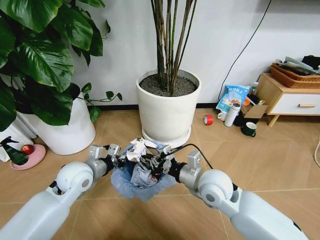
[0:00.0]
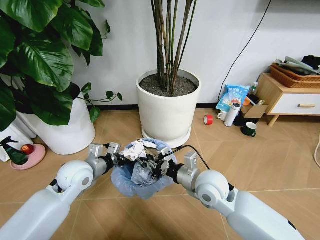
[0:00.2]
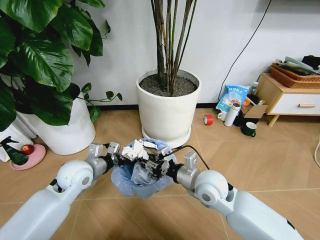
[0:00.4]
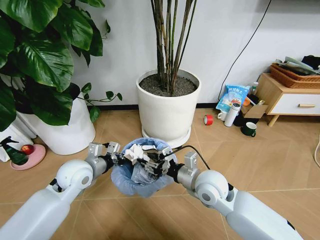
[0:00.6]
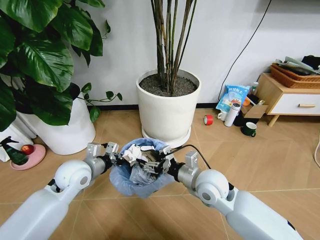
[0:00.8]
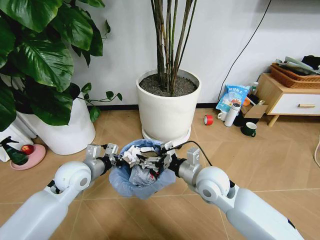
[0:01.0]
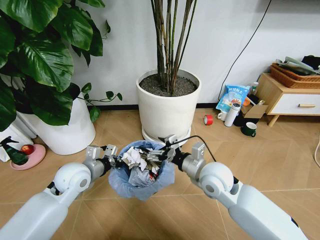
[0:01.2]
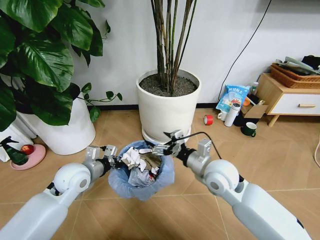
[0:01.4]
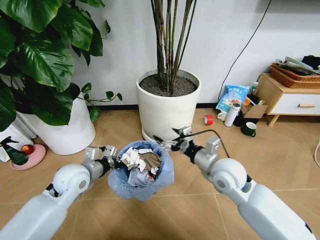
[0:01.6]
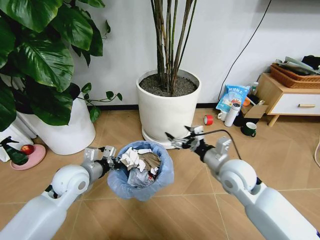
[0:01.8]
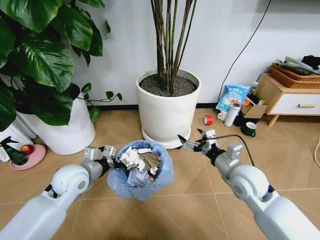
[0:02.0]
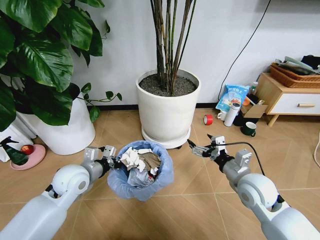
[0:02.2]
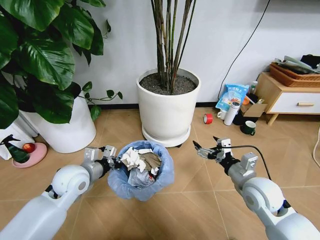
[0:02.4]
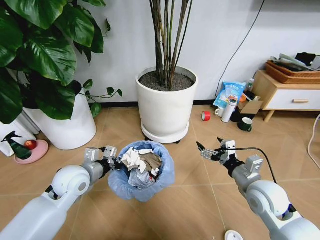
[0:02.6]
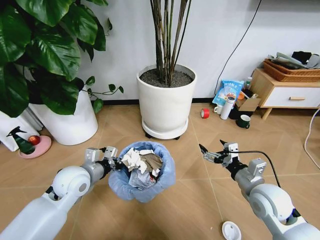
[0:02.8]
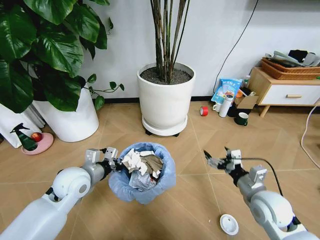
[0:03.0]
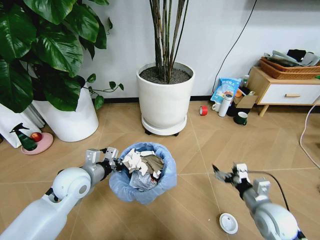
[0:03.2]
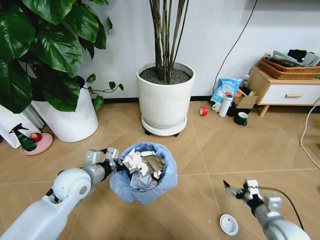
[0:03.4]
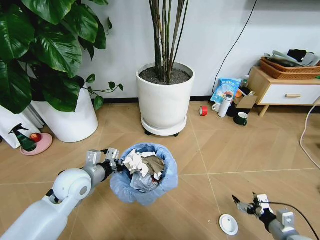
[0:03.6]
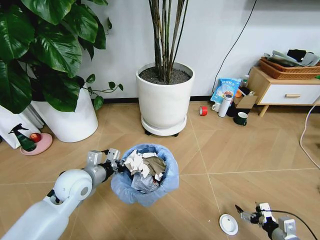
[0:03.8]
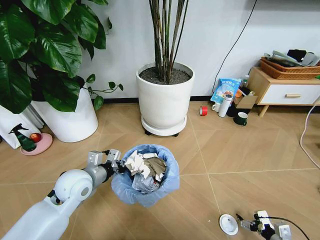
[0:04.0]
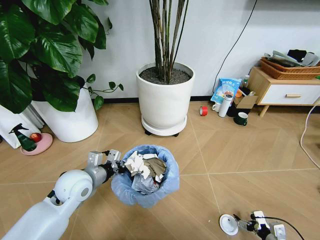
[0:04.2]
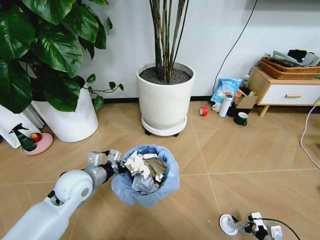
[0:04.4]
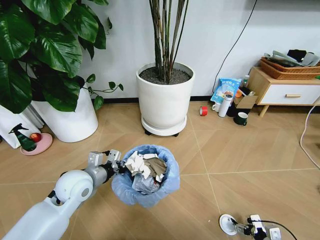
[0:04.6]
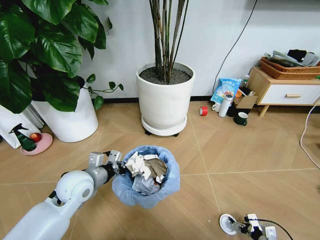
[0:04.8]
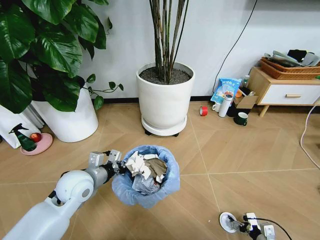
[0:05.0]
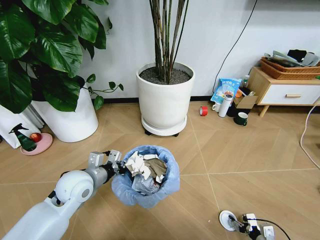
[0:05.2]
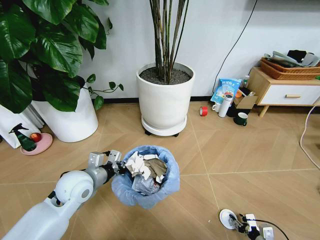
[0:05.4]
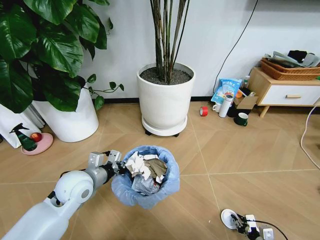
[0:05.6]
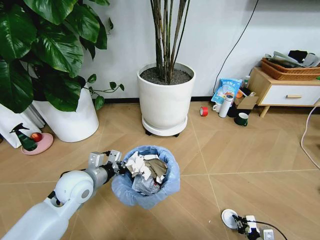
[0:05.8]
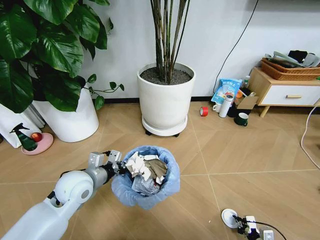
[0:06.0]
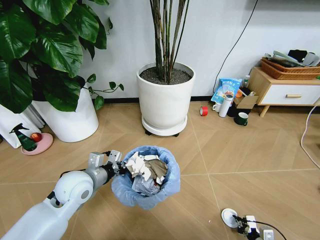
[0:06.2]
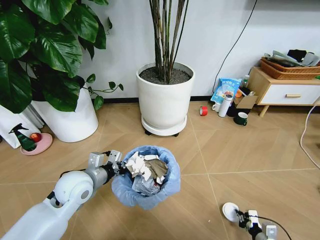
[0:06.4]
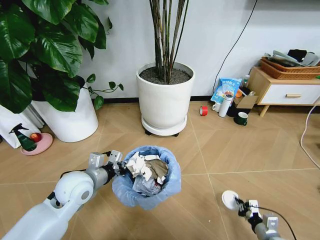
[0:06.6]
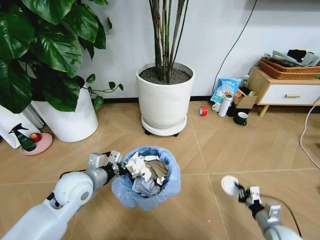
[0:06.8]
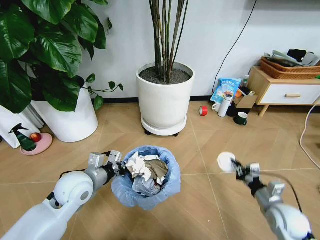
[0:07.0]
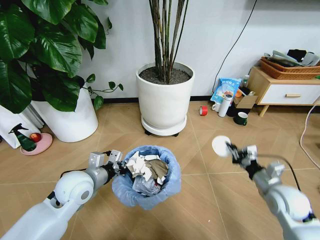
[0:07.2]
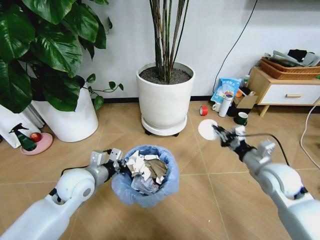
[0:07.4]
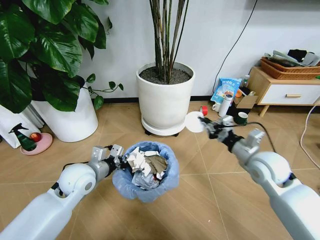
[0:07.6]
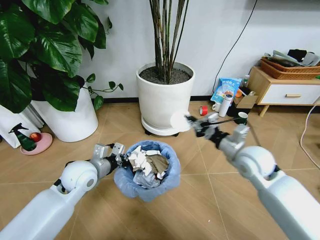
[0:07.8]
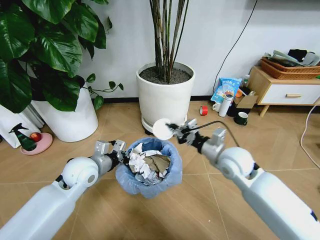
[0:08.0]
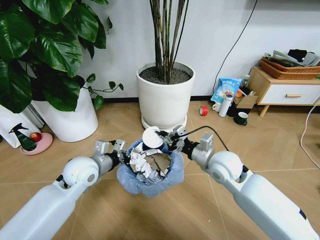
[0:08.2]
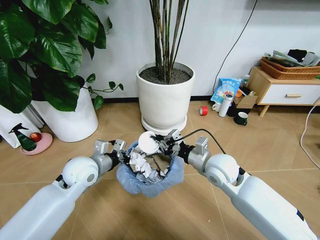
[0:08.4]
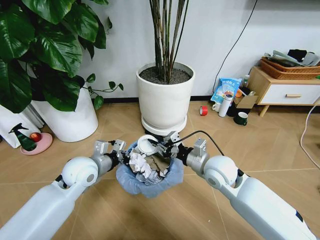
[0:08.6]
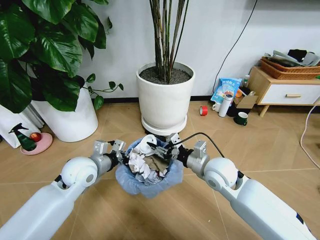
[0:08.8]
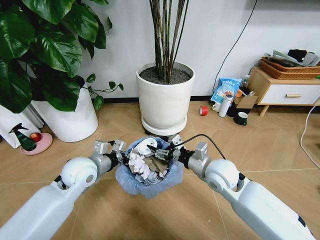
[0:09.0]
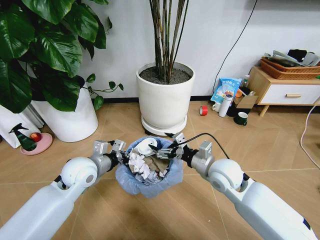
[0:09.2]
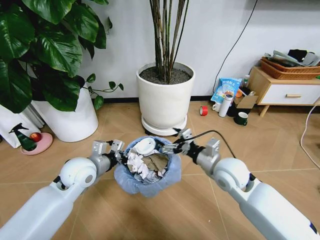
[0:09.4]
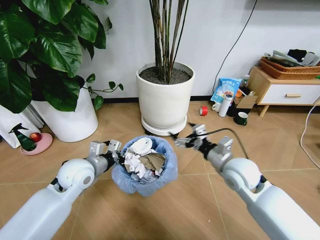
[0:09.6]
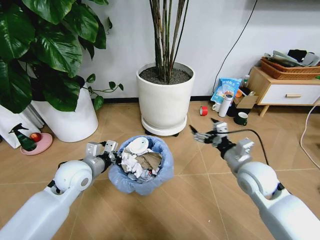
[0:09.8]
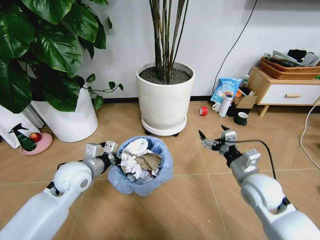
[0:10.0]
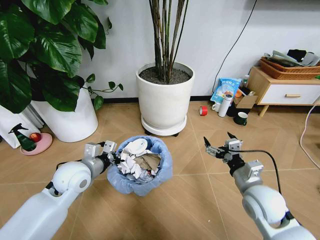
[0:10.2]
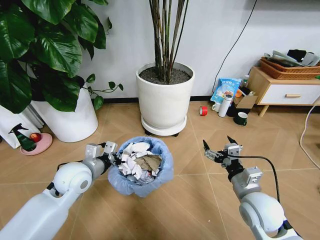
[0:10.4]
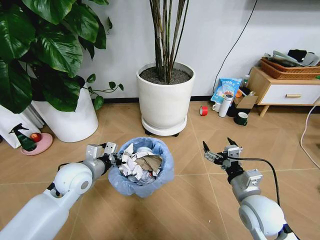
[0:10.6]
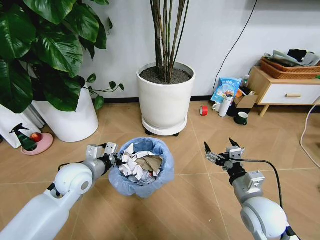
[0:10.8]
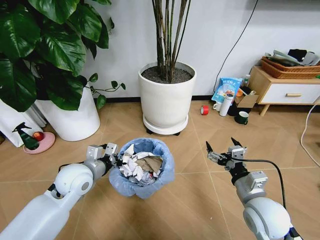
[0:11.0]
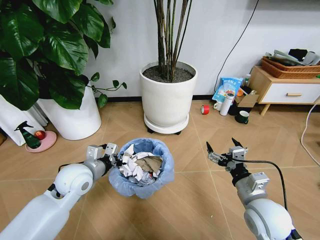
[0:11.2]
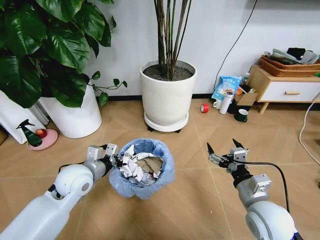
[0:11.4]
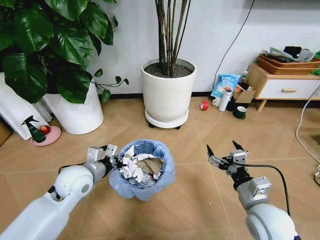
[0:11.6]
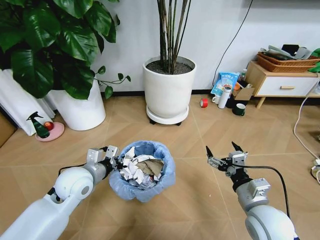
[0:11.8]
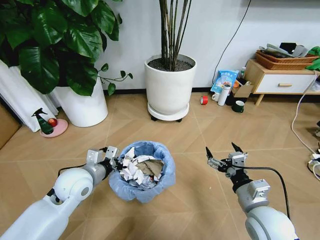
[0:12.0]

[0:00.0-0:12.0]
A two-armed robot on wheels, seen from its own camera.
Task of the whole recording: Pick up the trash bin and place the garbage on the floor into it.
0:00.0 to 0:01.6: The right gripper shifts by about 5 cm, and opens its fingers.
0:01.6 to 0:03.0: The right gripper moves to the right, backward and downward, some 15 cm.
0:03.0 to 0:04.4: The right gripper shifts roughly 30 cm downward, to the right and backward.
0:04.4 to 0:06.0: The right gripper moves roughly 5 cm, and closes up.
0:06.0 to 0:07.6: The right gripper shifts about 40 cm upward and forward.
0:07.6 to 0:09.0: The right gripper moves to the left, roughly 10 cm, and opens.
0:09.0 to 0:10.4: The right gripper goes some 15 cm backward and to the right.

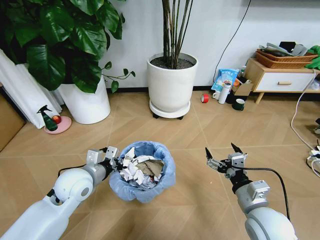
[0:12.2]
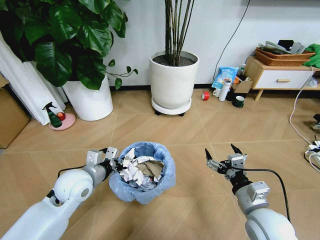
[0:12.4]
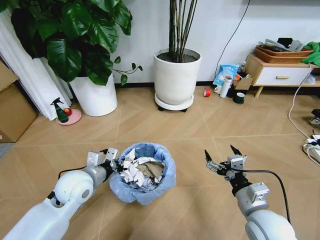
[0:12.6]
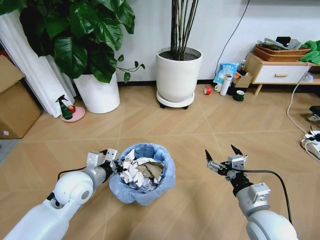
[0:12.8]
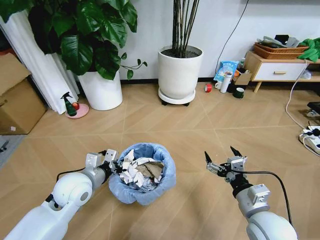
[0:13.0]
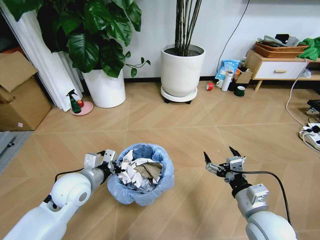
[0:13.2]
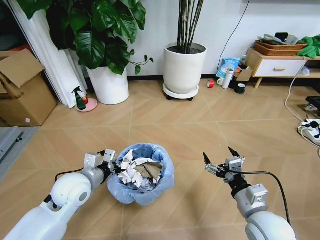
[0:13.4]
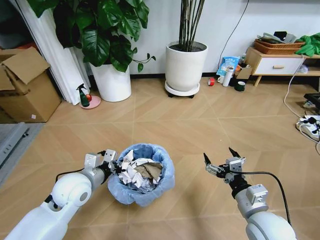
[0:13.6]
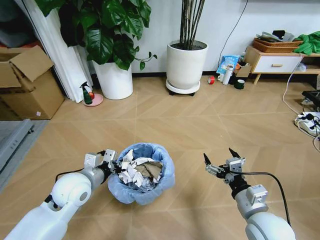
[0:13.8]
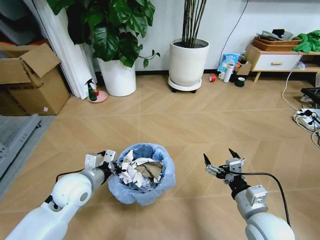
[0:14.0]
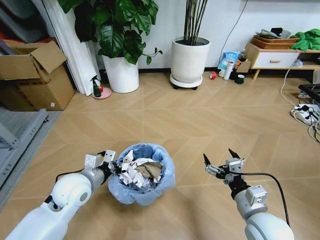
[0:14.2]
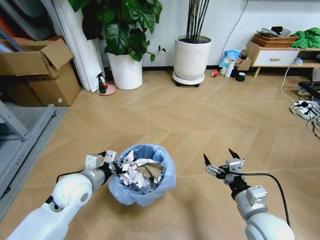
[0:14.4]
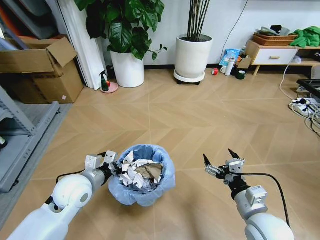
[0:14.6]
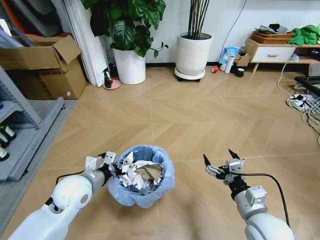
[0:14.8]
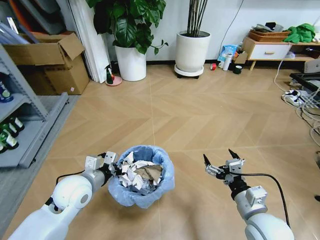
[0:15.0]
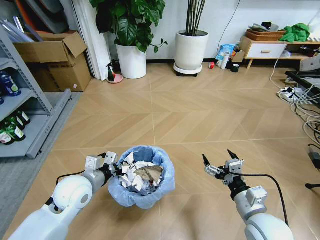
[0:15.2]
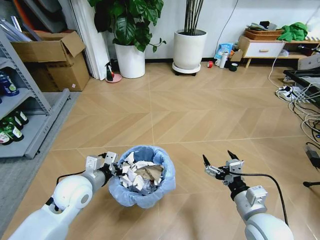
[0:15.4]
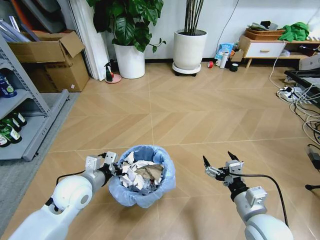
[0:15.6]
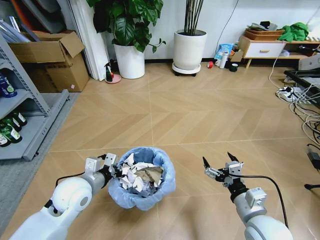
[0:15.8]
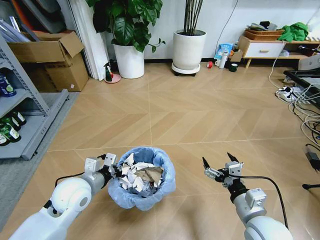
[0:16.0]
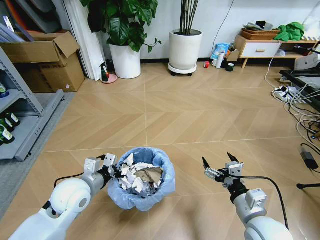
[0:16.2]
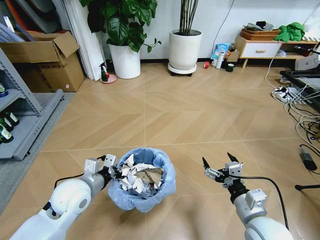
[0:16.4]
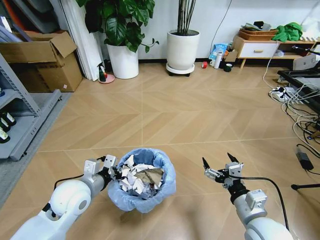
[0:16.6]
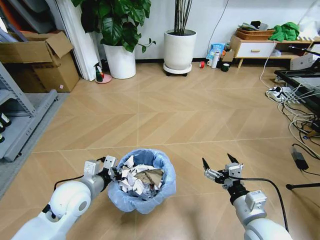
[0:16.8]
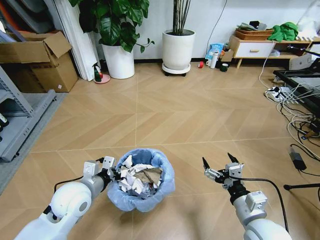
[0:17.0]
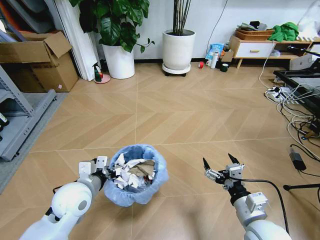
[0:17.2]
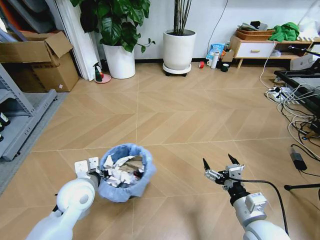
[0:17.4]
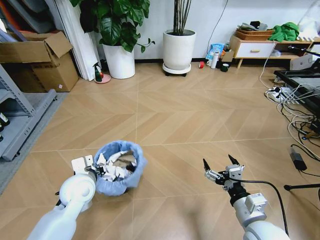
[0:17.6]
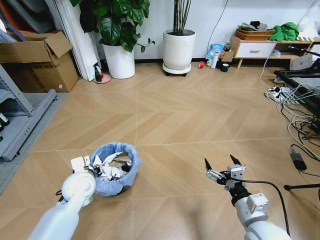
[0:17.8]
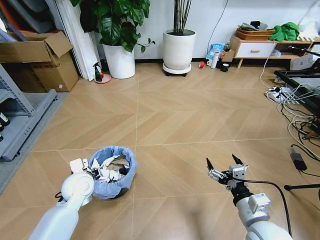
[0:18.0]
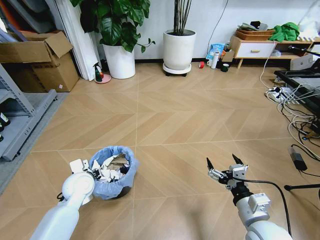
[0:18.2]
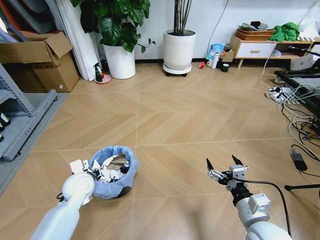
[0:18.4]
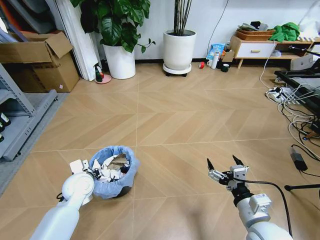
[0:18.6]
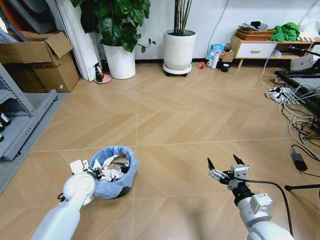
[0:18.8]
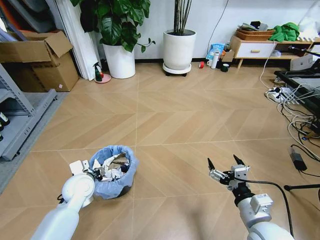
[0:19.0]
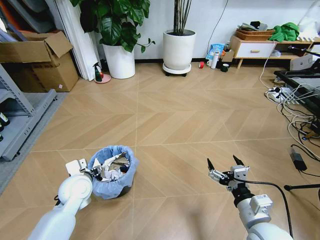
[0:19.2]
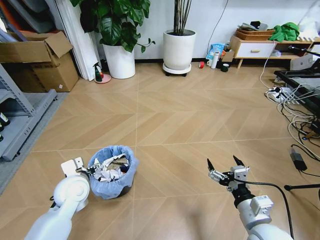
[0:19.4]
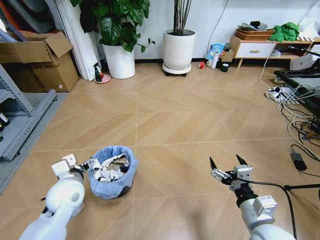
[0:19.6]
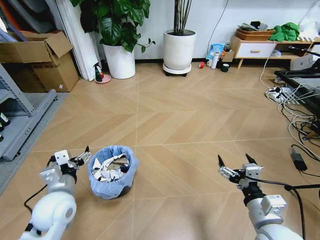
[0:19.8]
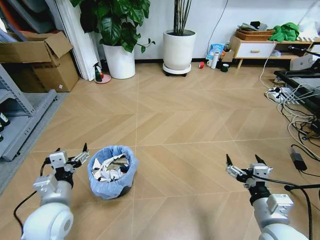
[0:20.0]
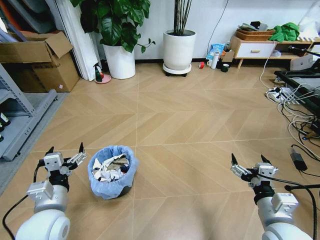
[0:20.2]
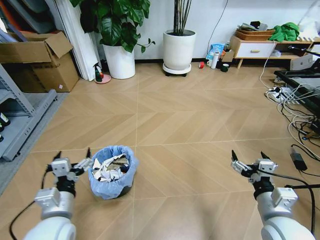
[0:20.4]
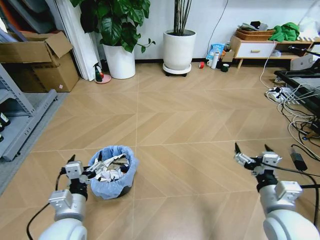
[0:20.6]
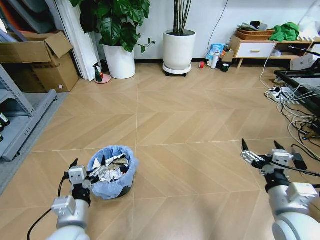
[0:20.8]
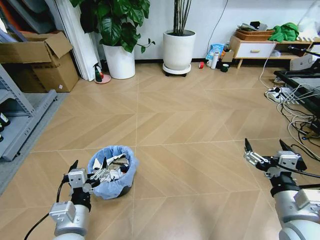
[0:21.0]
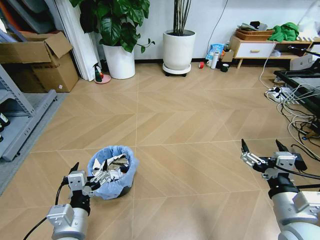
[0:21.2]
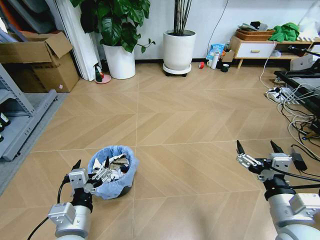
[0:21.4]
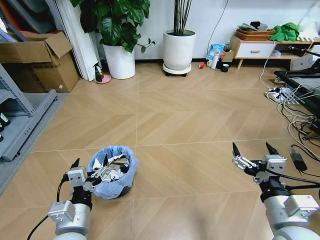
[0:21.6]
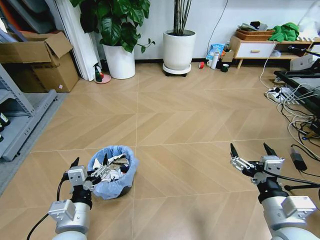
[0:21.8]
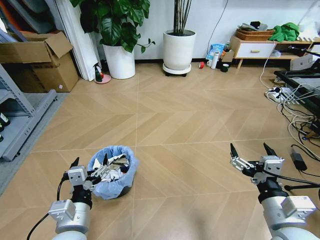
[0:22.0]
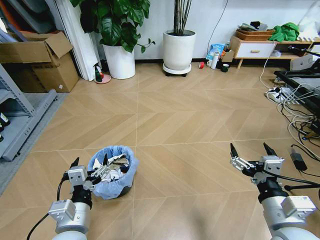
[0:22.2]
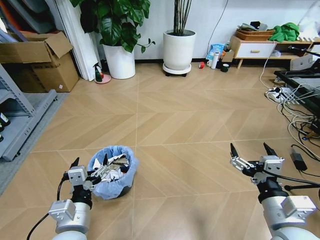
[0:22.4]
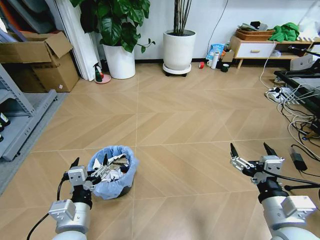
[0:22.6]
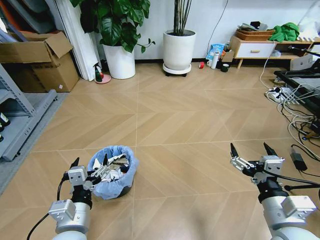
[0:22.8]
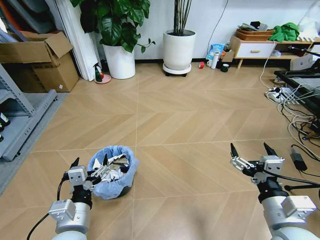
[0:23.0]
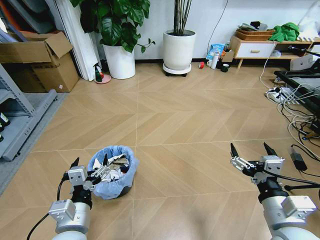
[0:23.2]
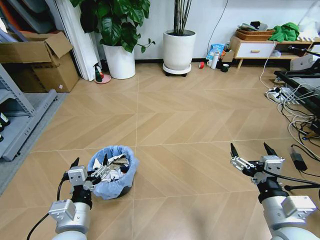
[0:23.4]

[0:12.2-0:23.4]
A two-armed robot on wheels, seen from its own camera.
Task of the whole recording: Pick up the trash bin and place the garbage on the floor into it.
0:17.0 to 0:18.6: The left gripper shifts some 10 cm forward and downward.
0:18.6 to 0:20.2: The left gripper heads backward and upward, covering roughly 15 cm, and opens.
0:20.2 to 0:21.8: The right gripper moves upward, some 5 cm; the left gripper moves to the right and backward, about 10 cm.
0:21.8 to 0:23.4: Both grippers stay put.
